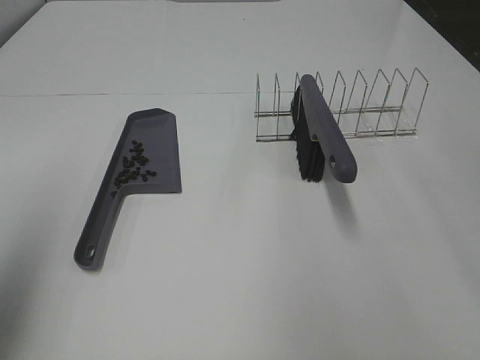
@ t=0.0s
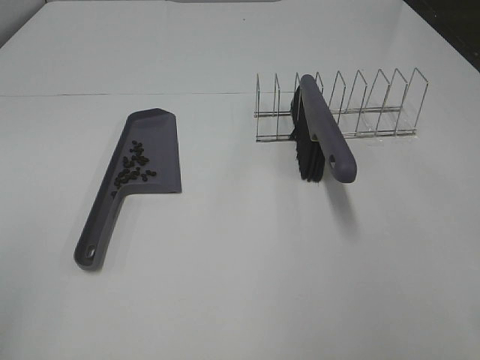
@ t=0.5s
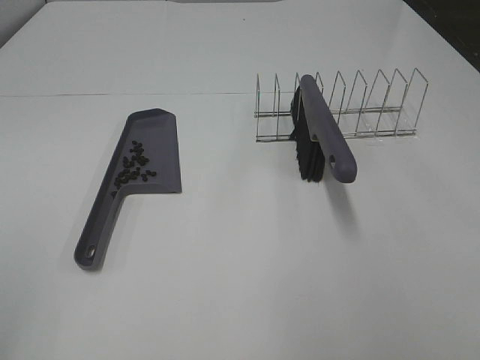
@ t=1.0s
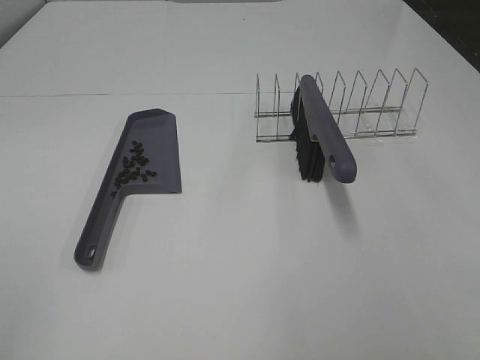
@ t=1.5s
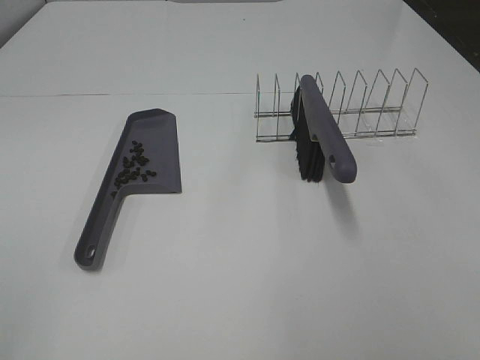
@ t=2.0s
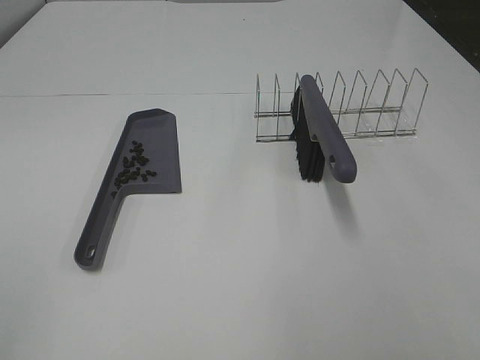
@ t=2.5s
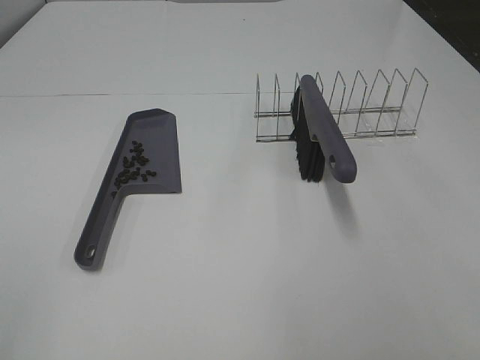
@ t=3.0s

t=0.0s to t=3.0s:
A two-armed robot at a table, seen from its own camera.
Task of the whole recording: Sweep Coffee Bean.
t=0.0s to t=1.5s: The left gripper is displaced backward by some 15 cm.
t=1.5s to t=3.0s: Both grippers stay put.
